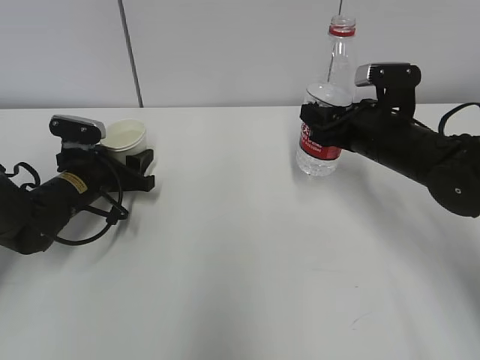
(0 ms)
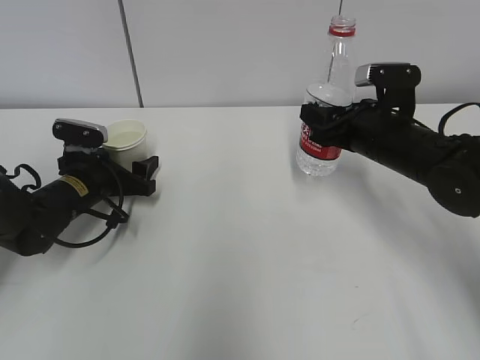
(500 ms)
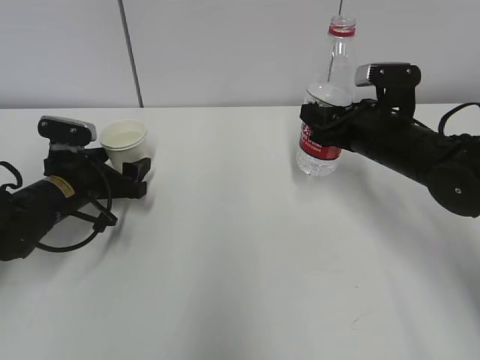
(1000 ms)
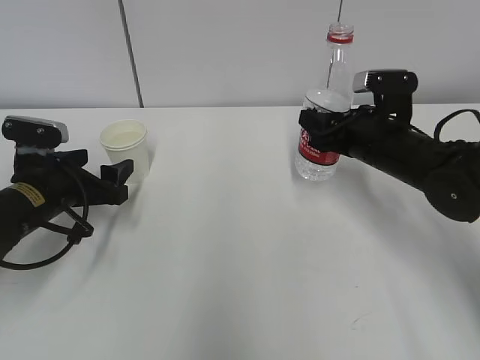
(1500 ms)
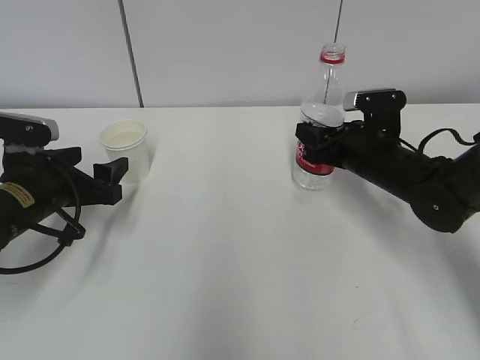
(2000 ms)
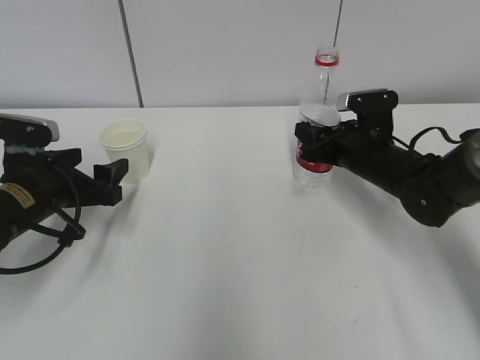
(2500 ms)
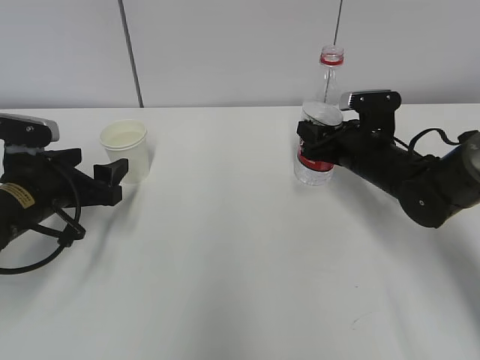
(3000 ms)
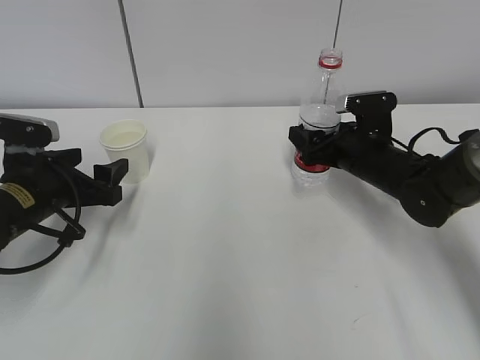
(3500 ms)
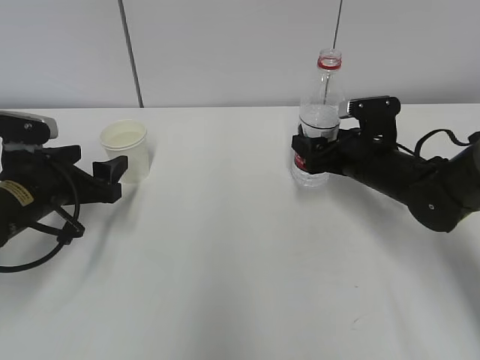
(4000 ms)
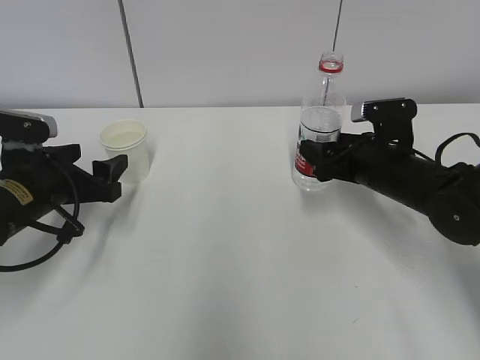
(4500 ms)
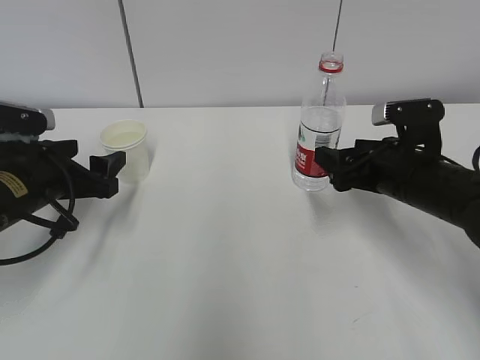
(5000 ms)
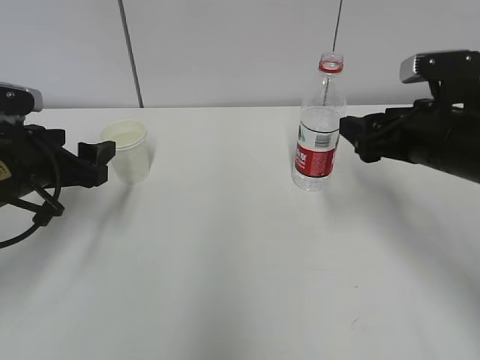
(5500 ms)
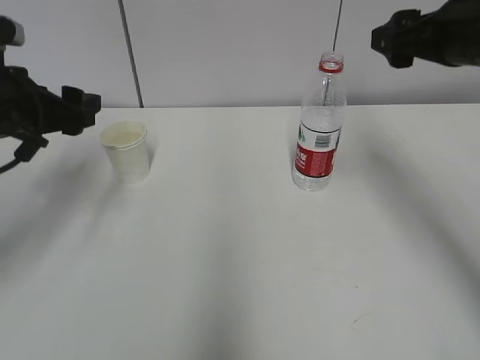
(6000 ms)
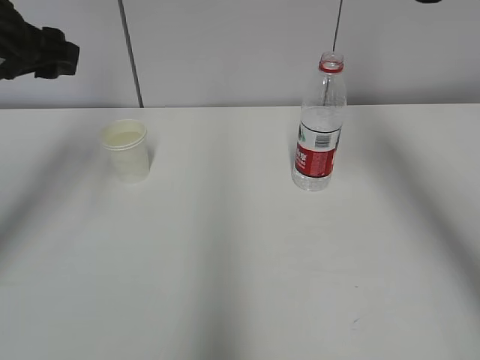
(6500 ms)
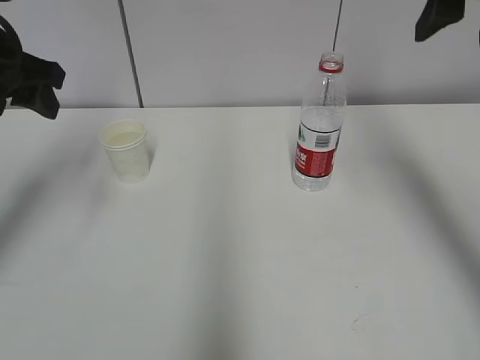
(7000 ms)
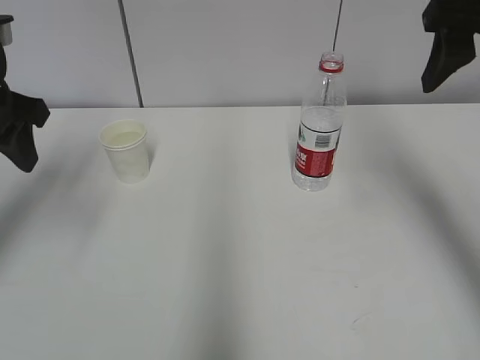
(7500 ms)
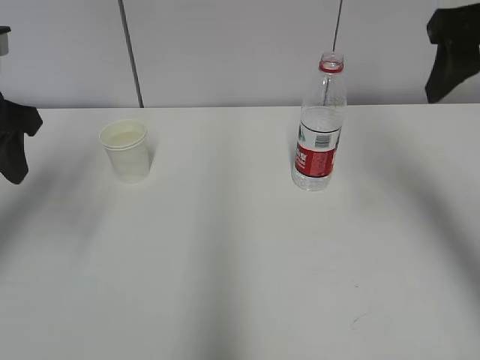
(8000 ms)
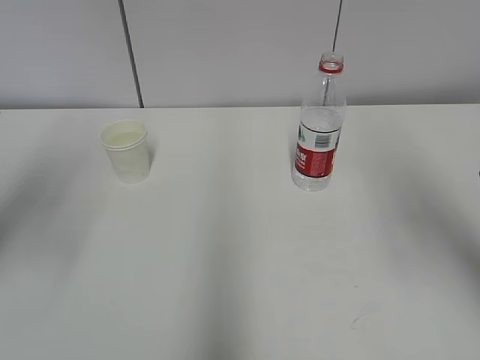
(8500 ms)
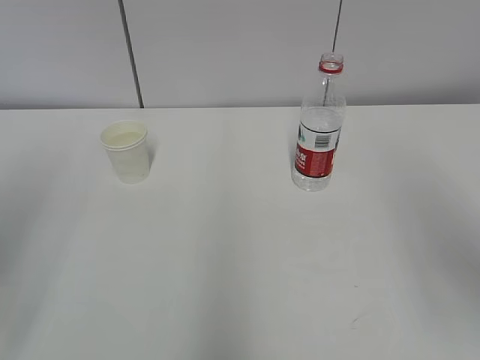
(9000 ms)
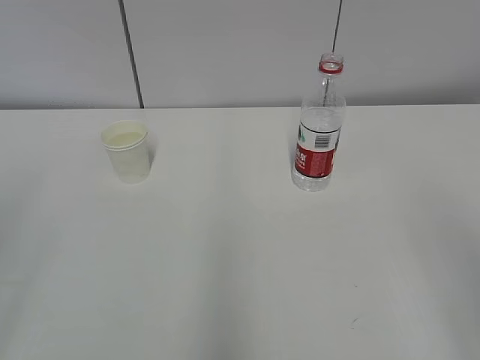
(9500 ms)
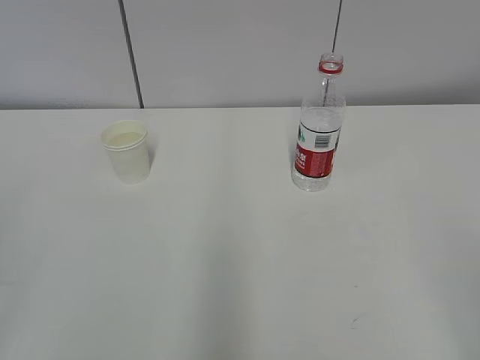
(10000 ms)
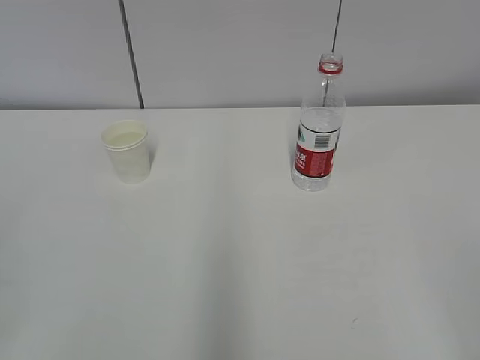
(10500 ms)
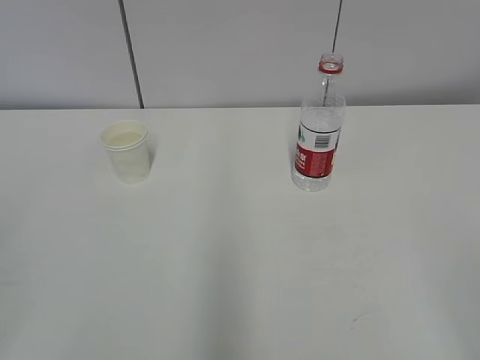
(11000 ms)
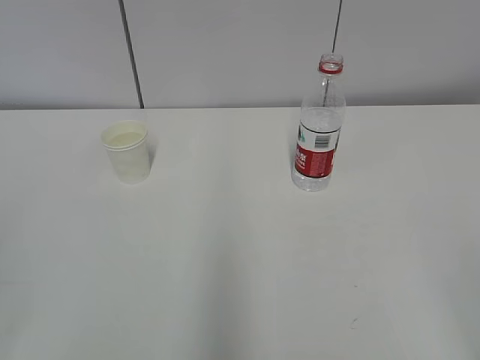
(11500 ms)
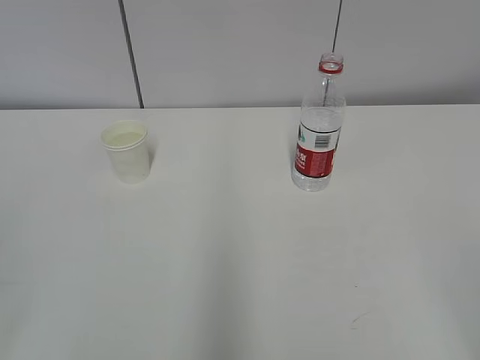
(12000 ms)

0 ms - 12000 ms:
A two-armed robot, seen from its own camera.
0 ms - 2000 ms: The left gripper is displaced backward and upward by roughly 10 cm.
2000 ms - 4000 ms: The right gripper opens.
4000 ms - 6000 ms: The right gripper travels upward by about 20 cm. The left gripper is displaced upward by about 10 cm.
6000 ms - 8000 ms: Both grippers move upward, roughly 5 cm.
8000 ms - 10000 ms: Both grippers travel together backward, approximately 30 cm. The left gripper closes.
